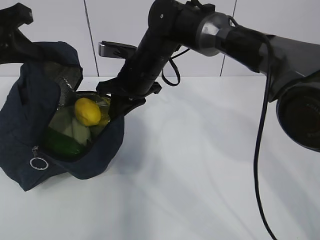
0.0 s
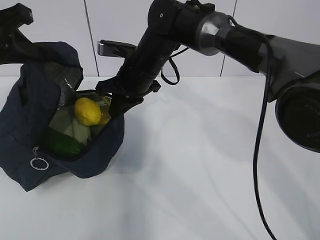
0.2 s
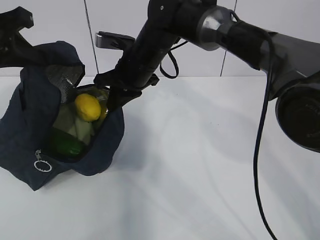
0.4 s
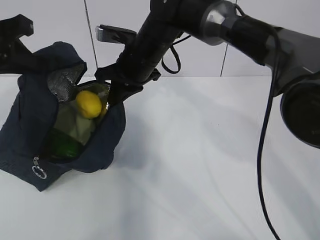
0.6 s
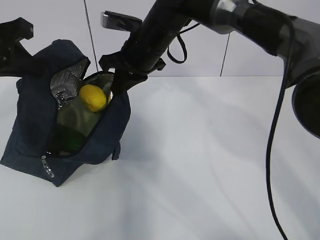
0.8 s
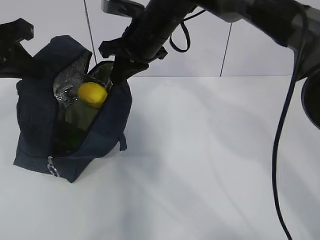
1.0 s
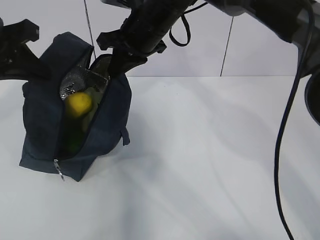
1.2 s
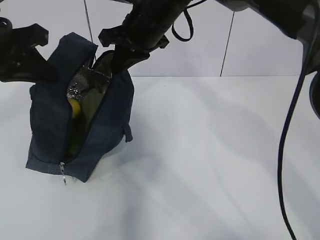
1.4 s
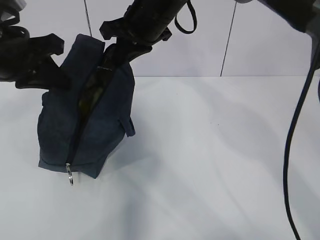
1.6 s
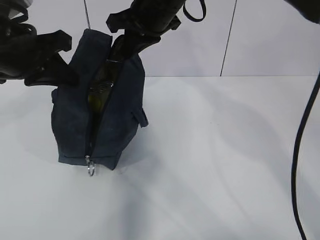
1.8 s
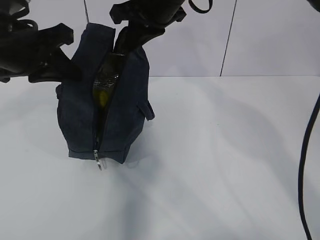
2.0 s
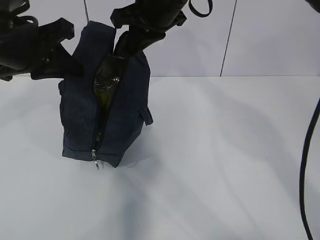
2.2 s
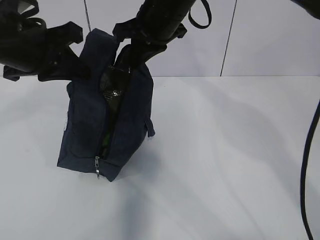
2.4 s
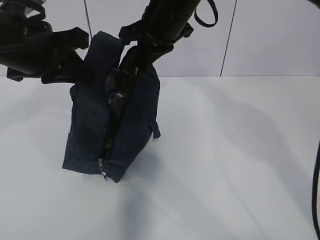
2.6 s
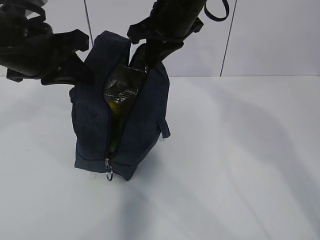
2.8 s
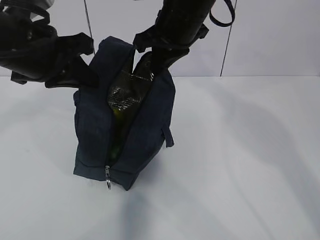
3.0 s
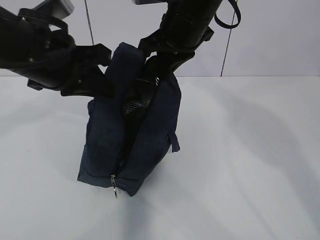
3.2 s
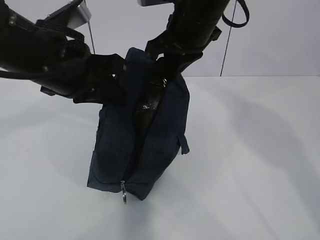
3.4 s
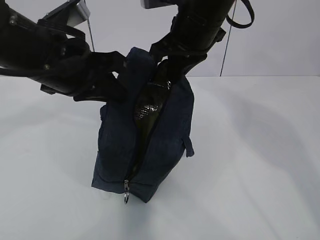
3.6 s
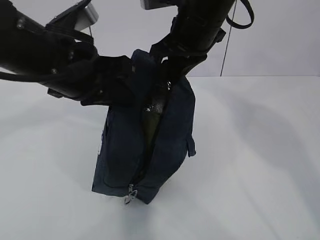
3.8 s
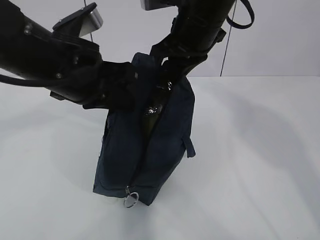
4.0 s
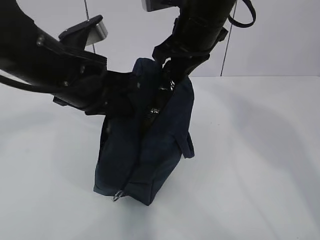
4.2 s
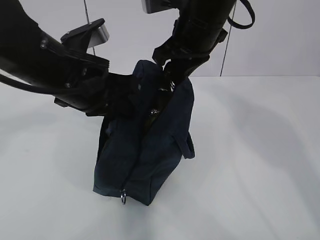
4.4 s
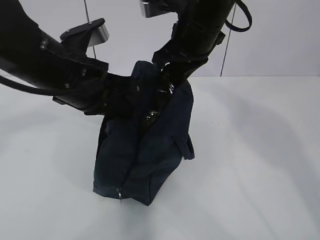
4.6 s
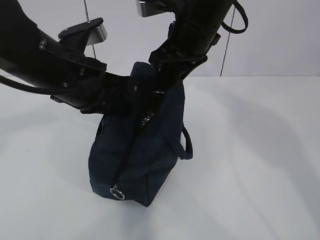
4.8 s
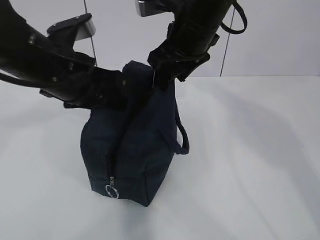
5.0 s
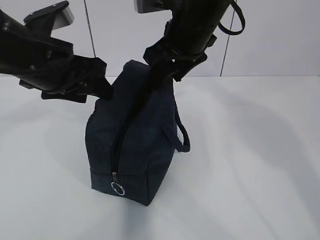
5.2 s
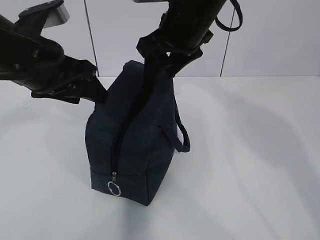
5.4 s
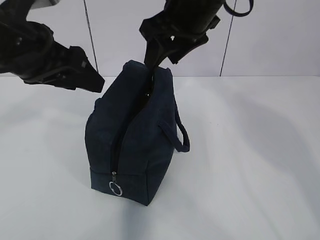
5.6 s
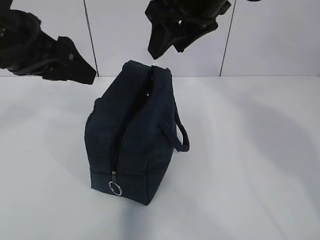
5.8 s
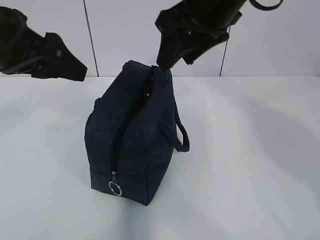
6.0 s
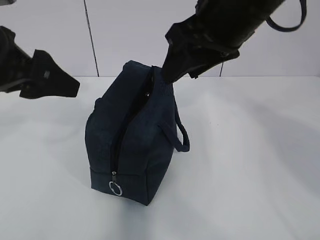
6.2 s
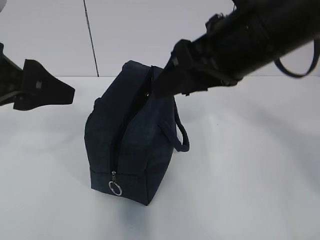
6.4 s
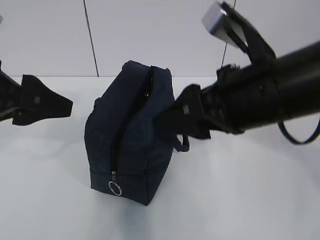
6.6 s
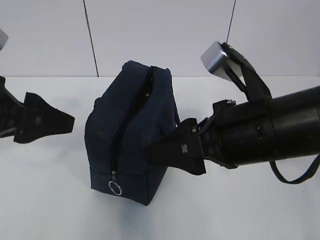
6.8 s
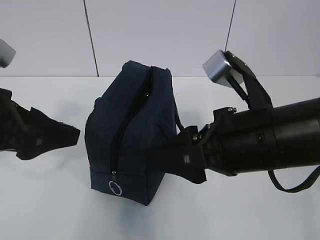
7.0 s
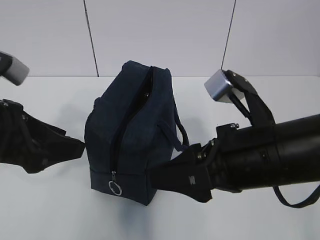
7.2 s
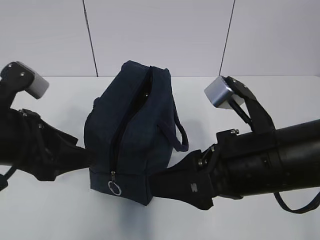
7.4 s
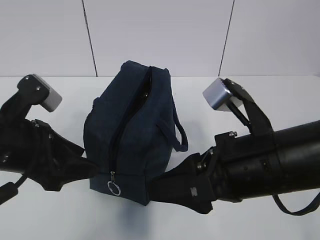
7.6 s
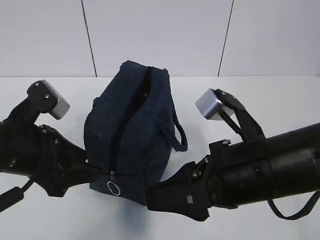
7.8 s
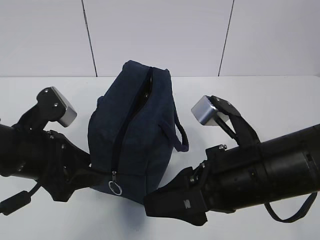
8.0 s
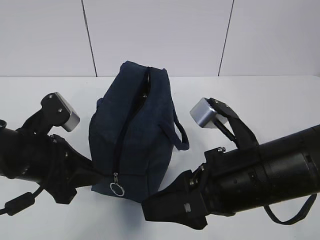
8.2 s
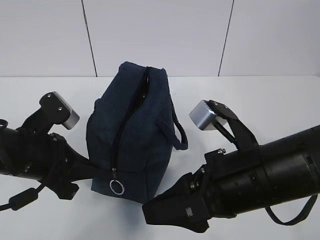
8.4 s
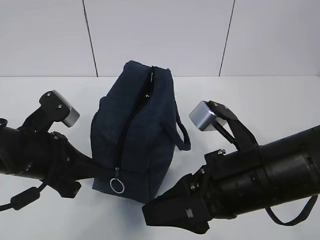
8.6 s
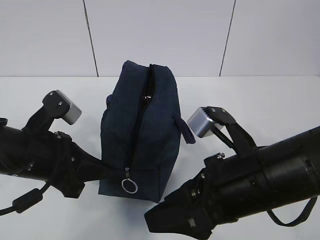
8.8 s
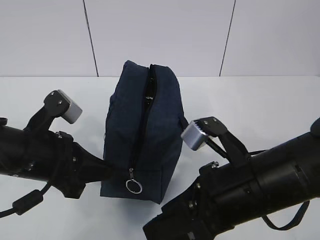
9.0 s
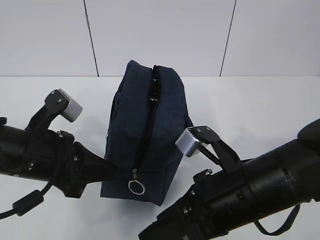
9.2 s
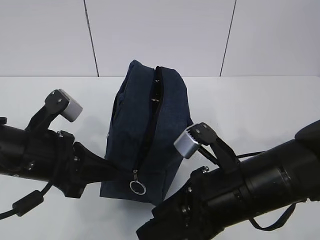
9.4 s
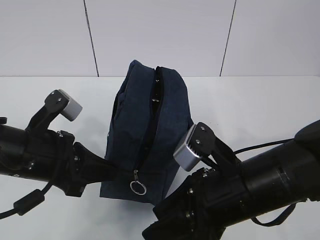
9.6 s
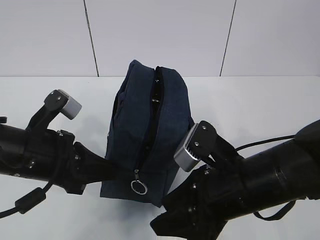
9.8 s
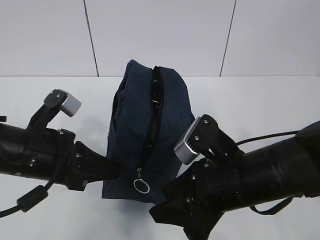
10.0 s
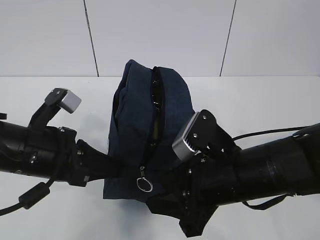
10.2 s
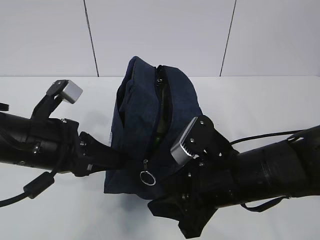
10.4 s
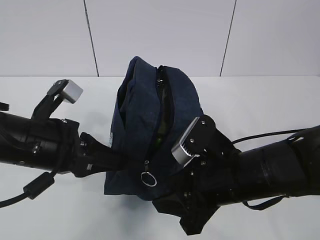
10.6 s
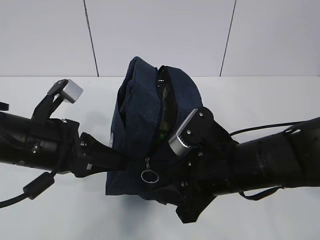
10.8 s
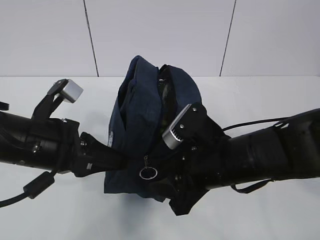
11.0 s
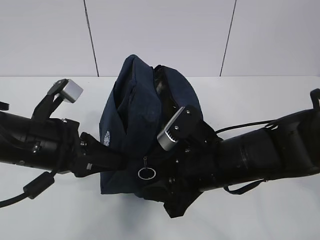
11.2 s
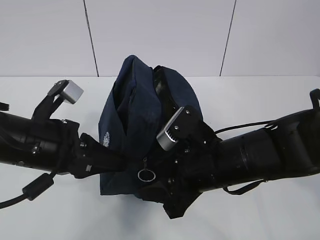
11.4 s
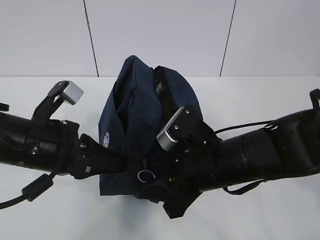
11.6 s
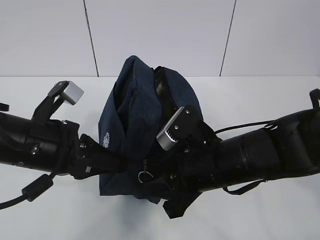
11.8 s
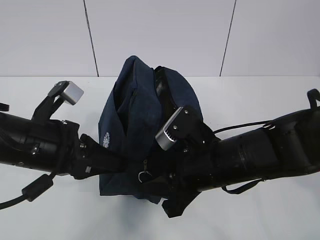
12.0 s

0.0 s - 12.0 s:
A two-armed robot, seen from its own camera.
Step, 0.0 s - 11.2 s: Grab the lunch bag with your left hand.
0.0 s - 1.6 s: The right gripper goes roughly 10 cm upward.
3.0 s - 4.4 s: The left gripper shifts roughly 5 cm to the right.
4.4 s - 6.0 s: The right gripper heads upward, covering approximately 5 cm, and opens up, while the left gripper travels to the left and upward by about 10 cm, and opens up.
6.0 s - 7.6 s: The right gripper is displaced backward and downward by some 20 cm. Meanwhile the left gripper heads downward, covering approximately 10 cm.
7.6 s - 9.0 s: The left gripper closes its fingers.
10.4 s - 12.0 s: The grippers move only a little.

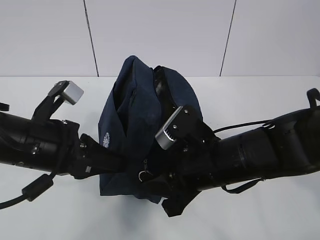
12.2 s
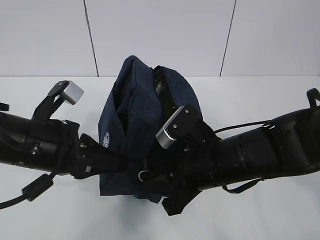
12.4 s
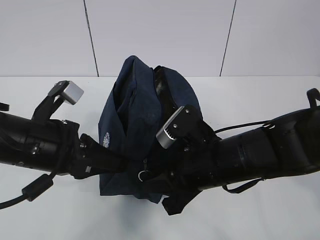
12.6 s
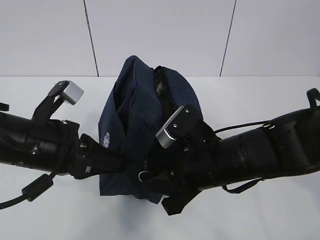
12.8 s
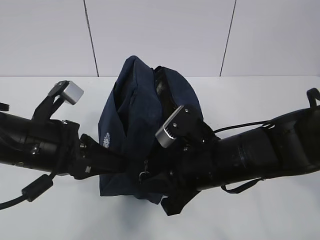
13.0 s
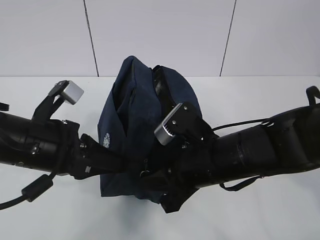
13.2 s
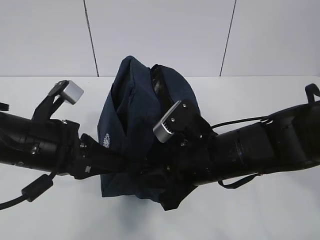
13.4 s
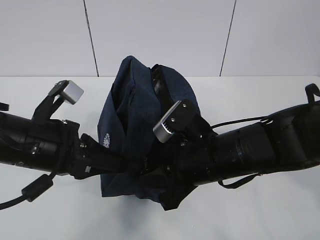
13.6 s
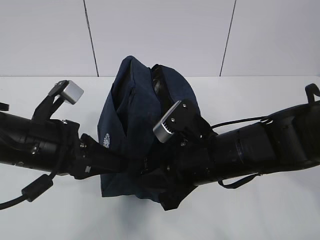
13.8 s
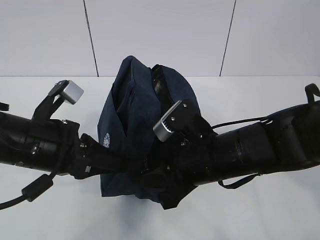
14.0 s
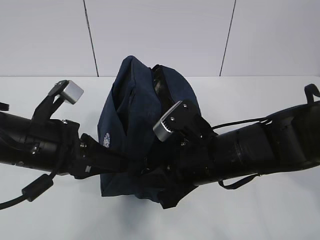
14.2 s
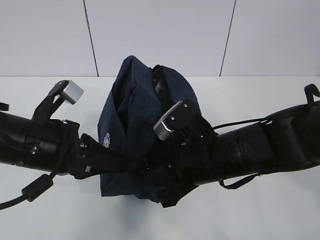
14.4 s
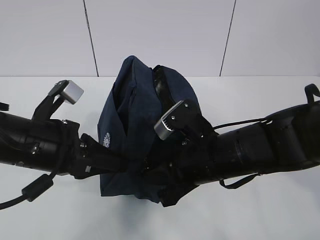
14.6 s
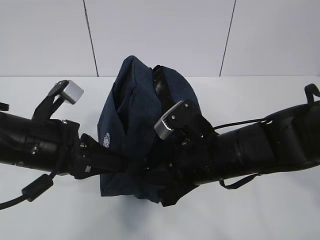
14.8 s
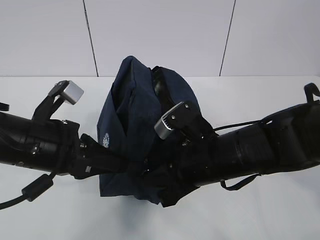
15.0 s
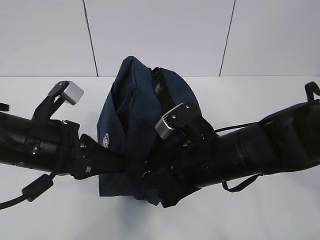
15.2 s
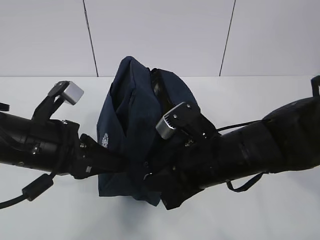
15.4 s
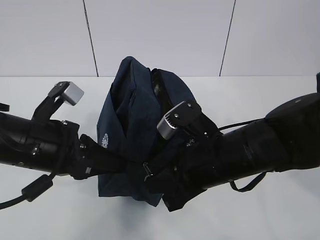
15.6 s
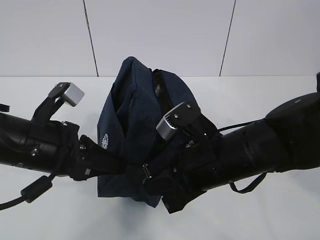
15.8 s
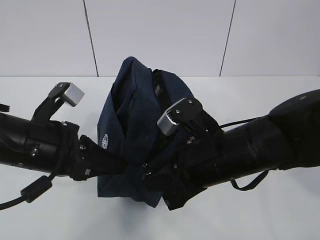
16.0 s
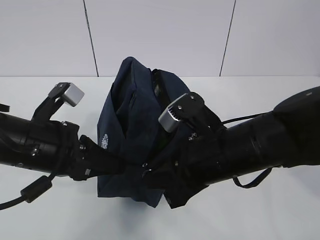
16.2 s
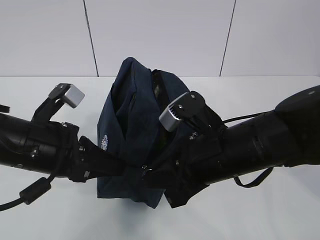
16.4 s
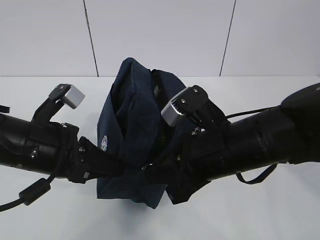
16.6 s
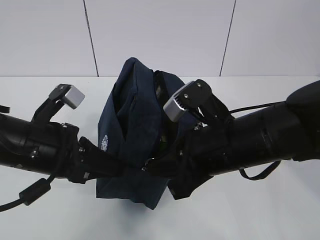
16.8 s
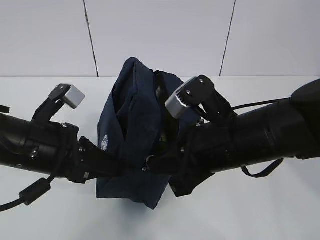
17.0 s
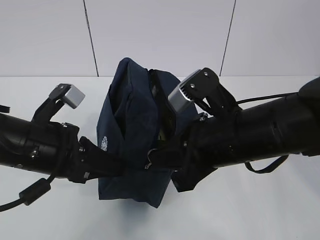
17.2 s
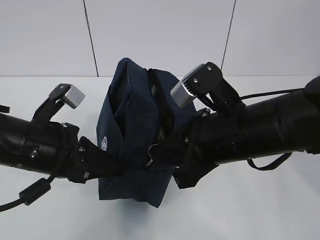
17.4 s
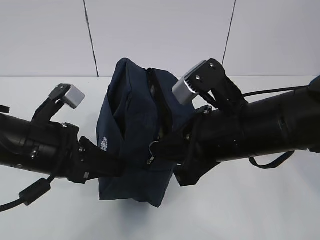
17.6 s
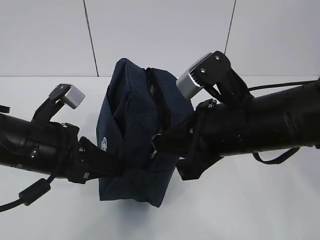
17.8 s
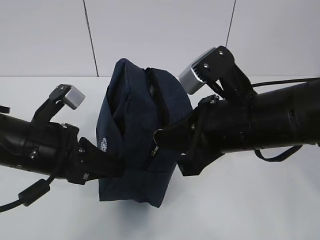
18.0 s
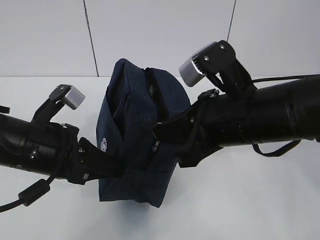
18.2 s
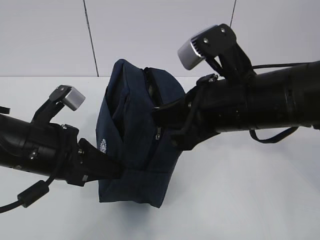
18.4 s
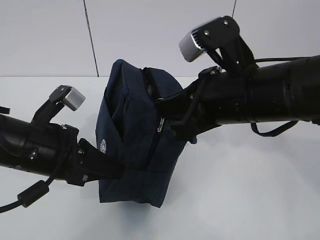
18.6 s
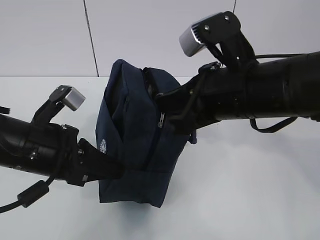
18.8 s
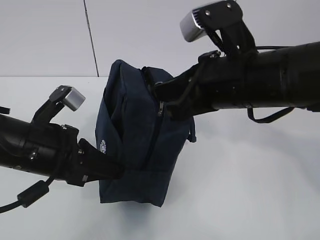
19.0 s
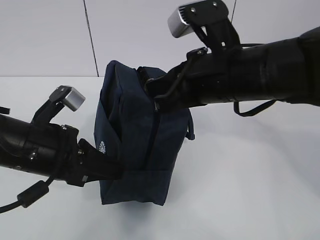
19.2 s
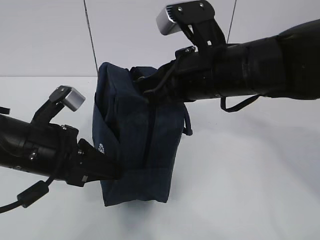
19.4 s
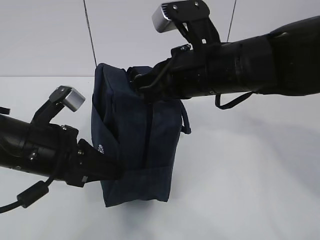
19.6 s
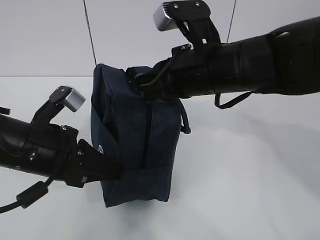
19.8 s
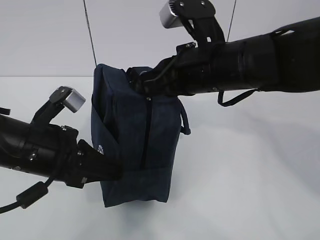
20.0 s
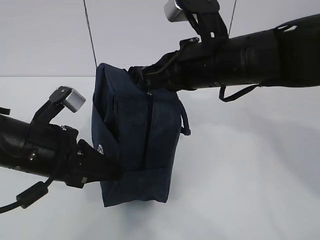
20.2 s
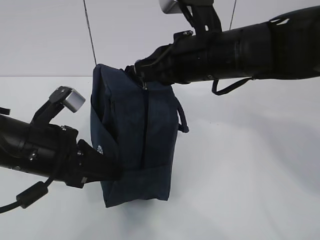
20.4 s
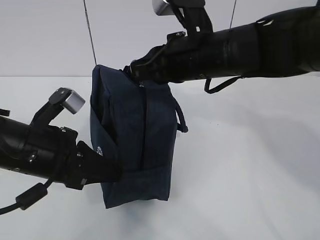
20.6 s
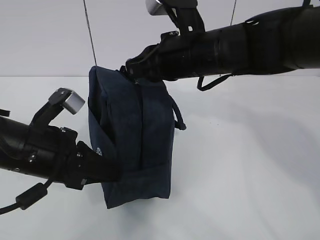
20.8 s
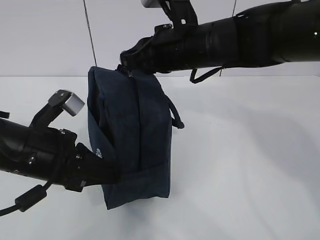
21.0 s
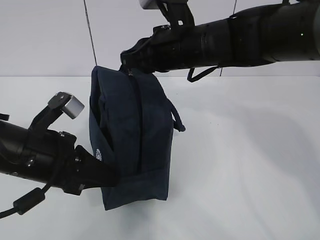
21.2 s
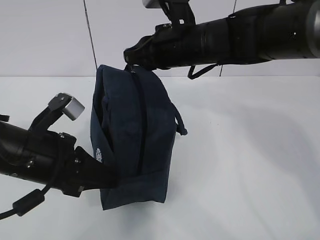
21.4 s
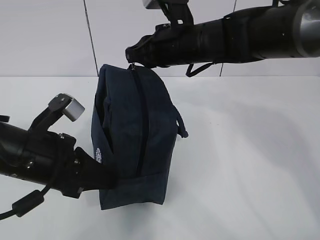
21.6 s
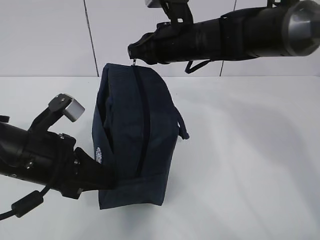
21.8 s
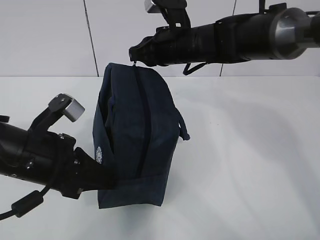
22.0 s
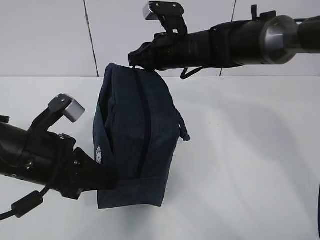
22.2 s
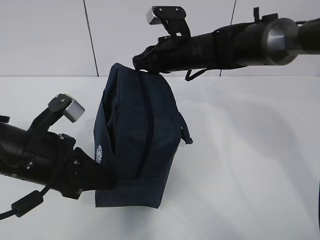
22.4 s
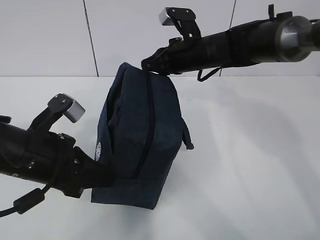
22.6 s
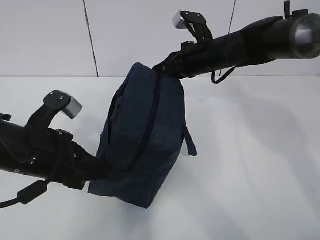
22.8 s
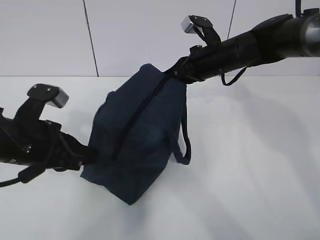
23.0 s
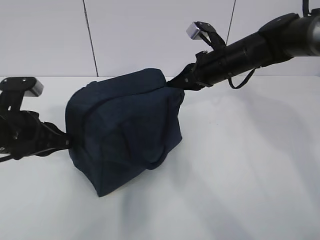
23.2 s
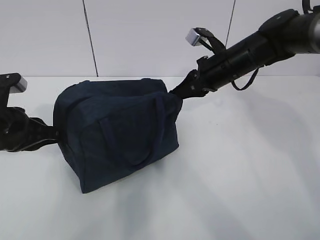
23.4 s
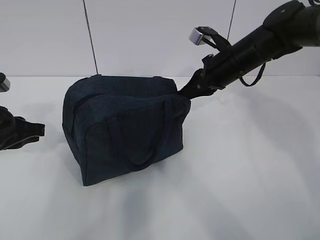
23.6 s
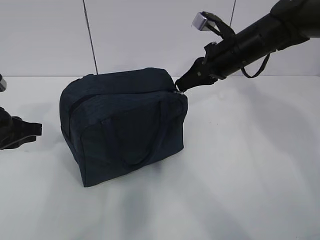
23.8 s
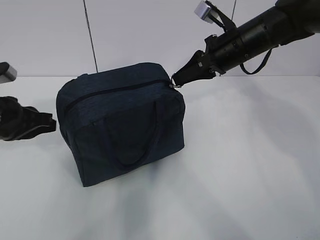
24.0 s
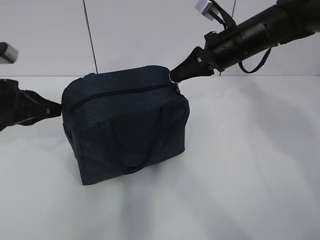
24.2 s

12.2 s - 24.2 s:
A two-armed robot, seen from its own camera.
Step, 12.2 s - 17.4 s: Pull the zipper with your right hand.
12.2 s - 13.8 s: Both grippers stay about where they are.
13.8 s - 16.6 s: There are only small adjustments of the grippers.
16.6 s - 18.2 s: The right gripper is displaced upward by about 5 cm.
18.2 s - 19.8 s: The right gripper shifts approximately 5 cm forward.
19.8 s - 21.2 s: The right gripper heads forward, covering approximately 5 cm.
21.2 s - 22.6 s: The right gripper is displaced forward and downward by roughly 10 cm.
22.6 s - 24.2 s: The left gripper heads to the left and forward, covering approximately 10 cm. Meanwhile the right gripper travels to the right by roughly 5 cm.
